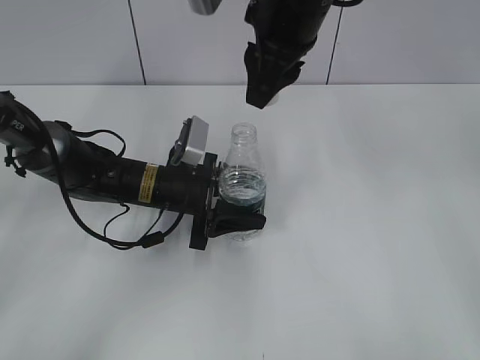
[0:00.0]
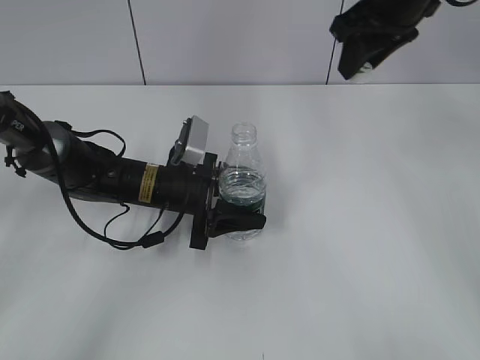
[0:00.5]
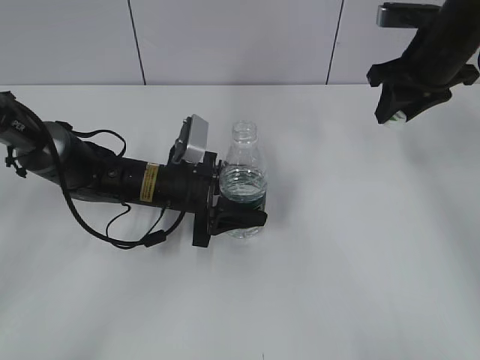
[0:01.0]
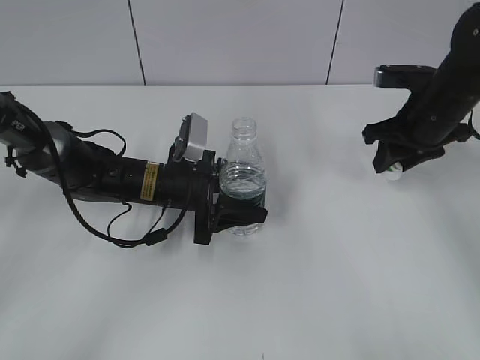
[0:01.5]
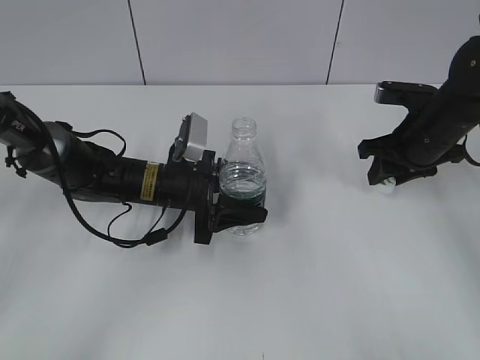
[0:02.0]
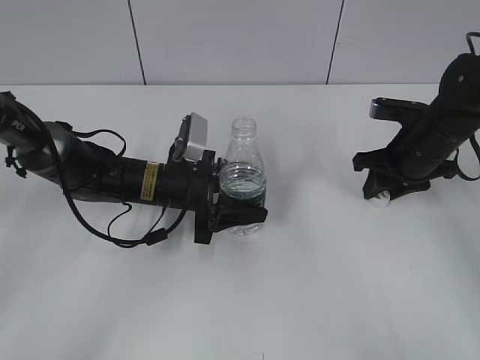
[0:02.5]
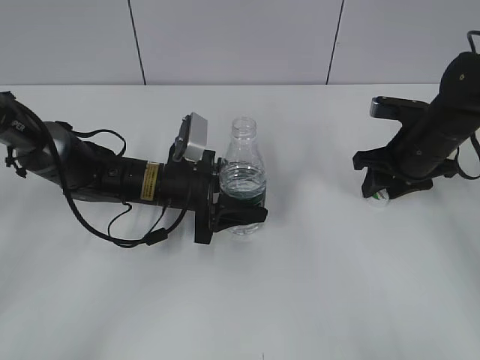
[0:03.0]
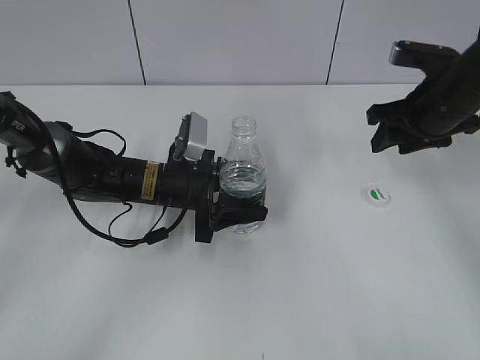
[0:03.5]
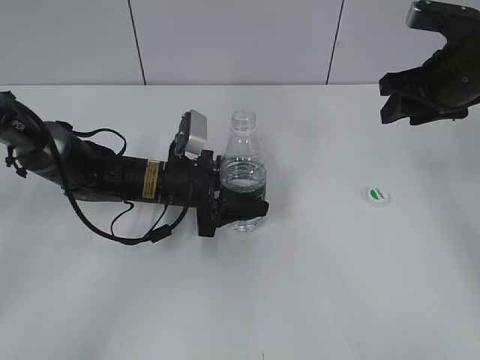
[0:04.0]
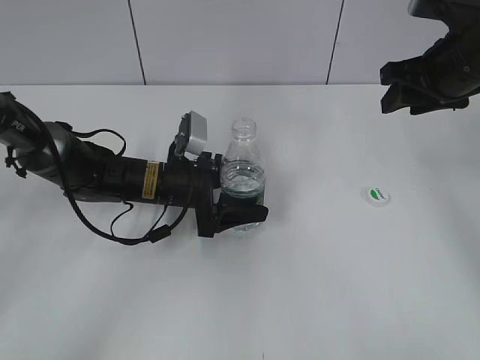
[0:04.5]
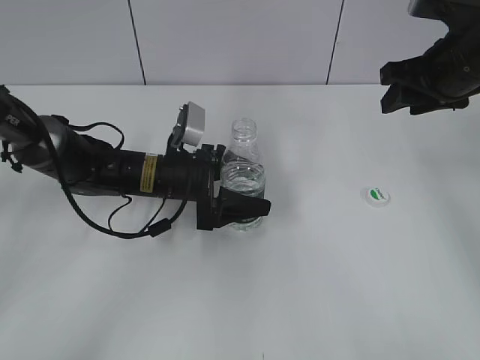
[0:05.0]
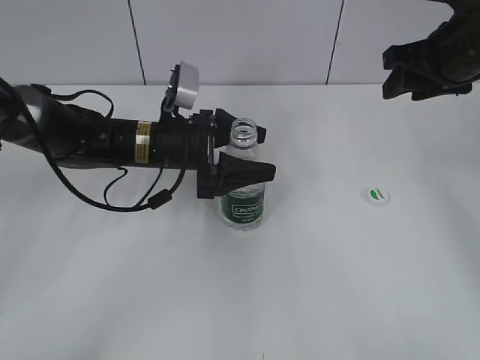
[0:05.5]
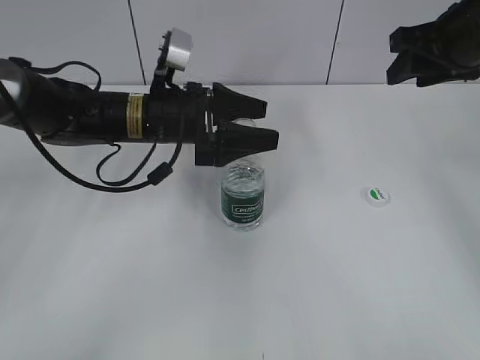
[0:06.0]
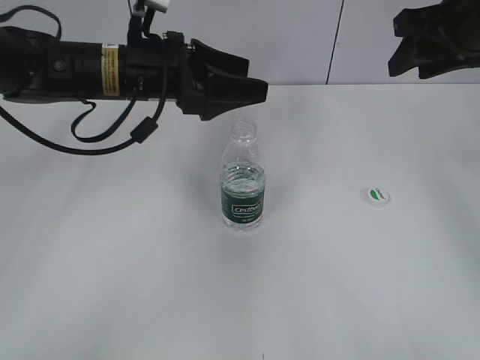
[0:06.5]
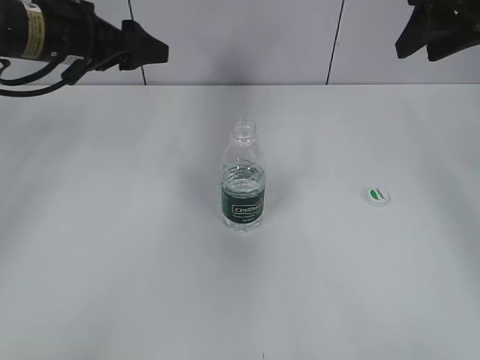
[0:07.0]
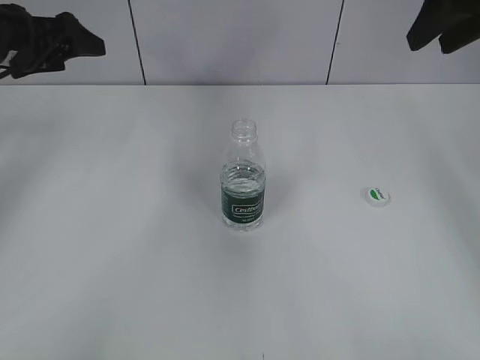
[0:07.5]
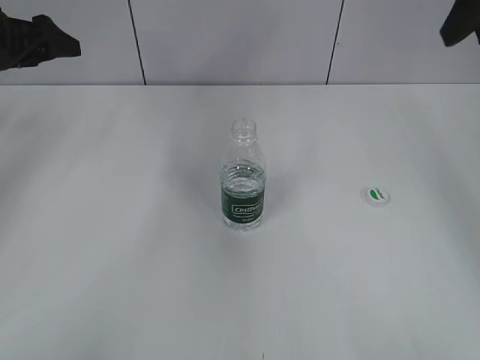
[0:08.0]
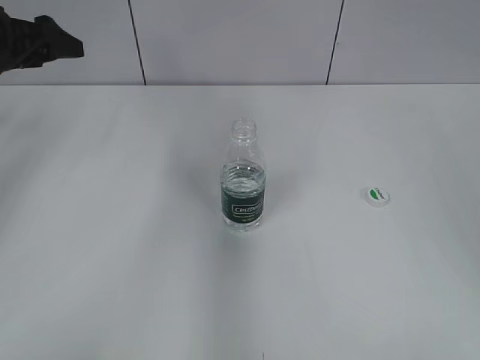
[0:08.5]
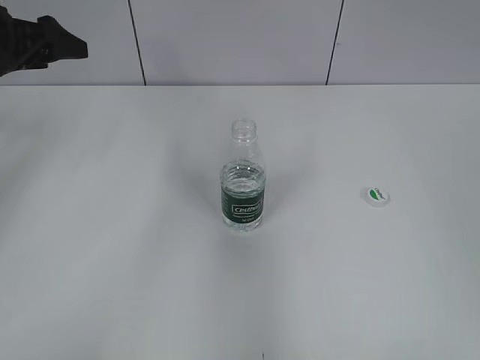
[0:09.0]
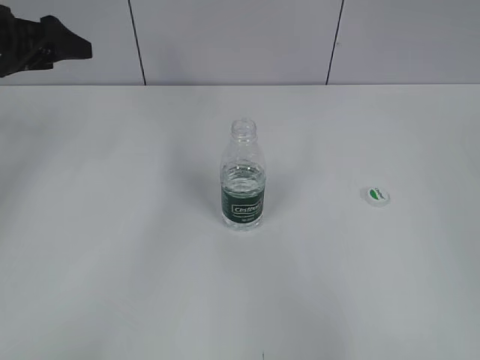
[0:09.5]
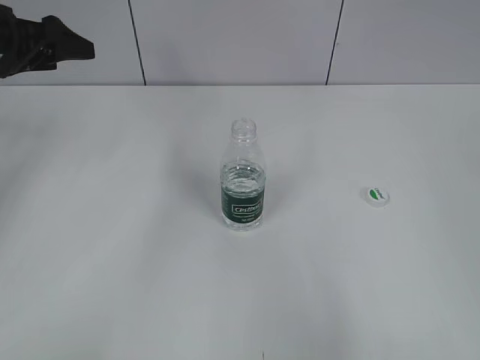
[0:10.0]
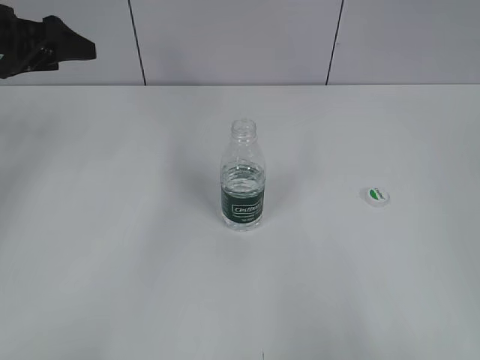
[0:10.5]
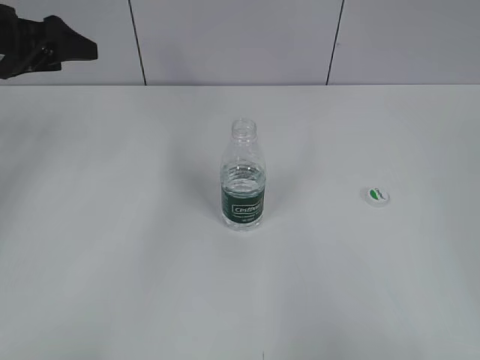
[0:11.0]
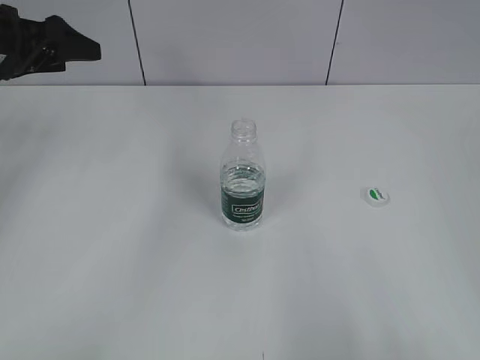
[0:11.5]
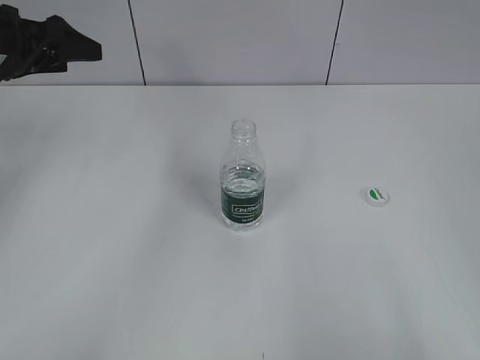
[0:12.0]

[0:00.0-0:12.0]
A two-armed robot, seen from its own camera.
Step, 0:00.0 to 0:03.0: Place the bottle cap on the table with the right gripper.
Step, 0:03.5 to 0:05.5: Place the bottle on the table with the left gripper.
0:00.0 to 0:02.0: The right gripper moves to the right and downward, roughly 25 cm.
0:02.0 to 0:04.0: The right gripper heads upward, covering some 10 cm, and opens its fingers.
0:04.0 to 0:06.0: The left gripper goes some 10 cm upward, and opens its fingers.
0:06.0 to 0:08.0: The right gripper is displaced upward by approximately 10 cm; the left gripper is displaced to the left by some 20 cm.
0:08.0 to 0:10.0: The right gripper moves backward, about 30 cm.

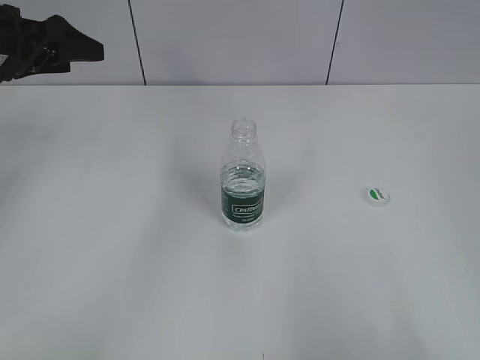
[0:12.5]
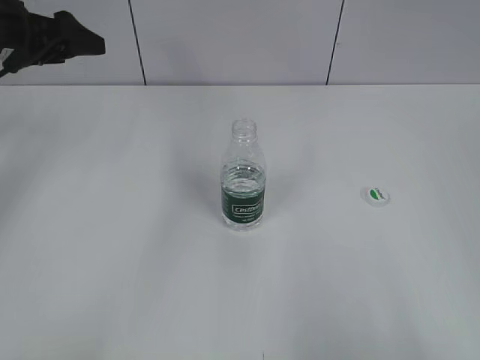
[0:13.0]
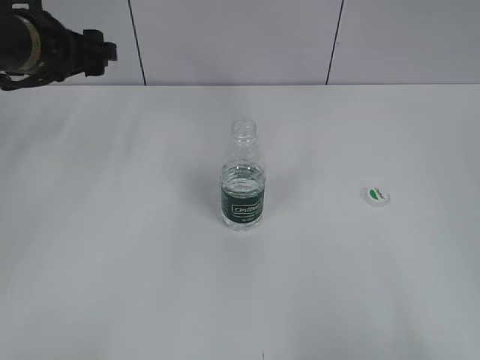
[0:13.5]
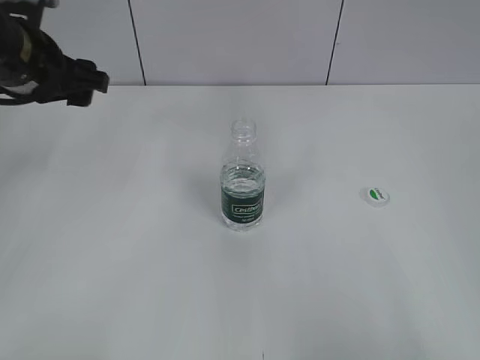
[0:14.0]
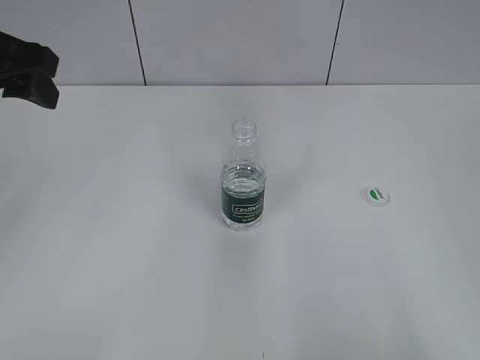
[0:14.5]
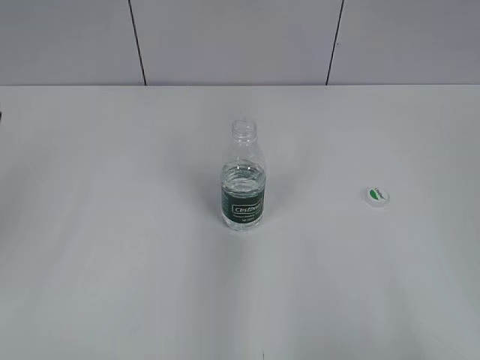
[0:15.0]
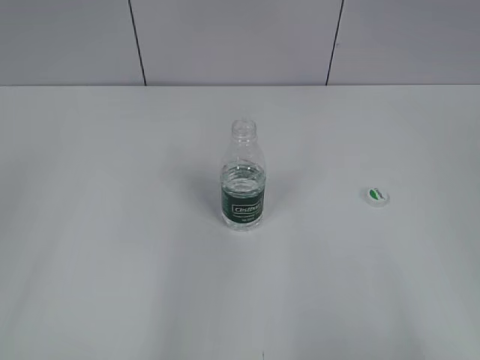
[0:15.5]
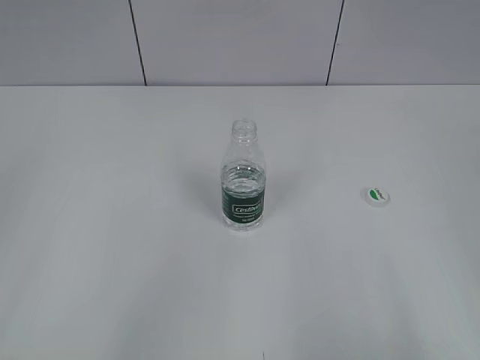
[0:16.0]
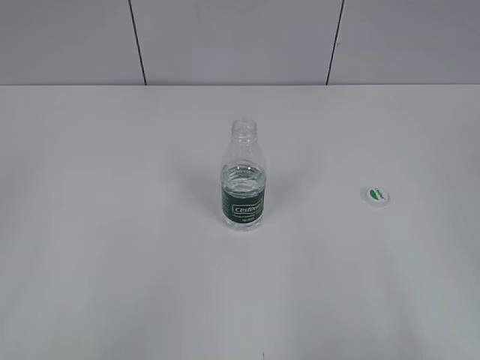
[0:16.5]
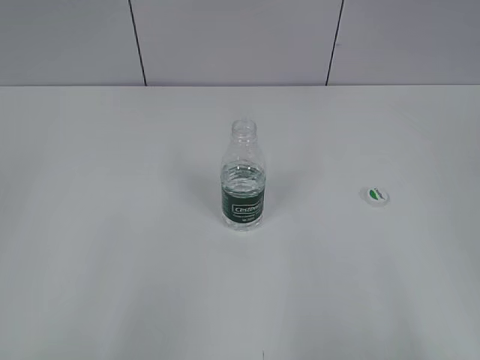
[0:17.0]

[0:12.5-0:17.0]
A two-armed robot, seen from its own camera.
0:12.5 to 0:14.5: The left gripper is displaced backward and upward by some 15 cm.
0:14.5 to 0:17.0: The left gripper shifts roughly 30 cm backward.
